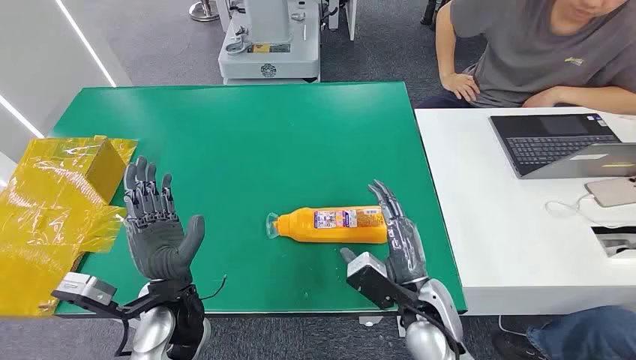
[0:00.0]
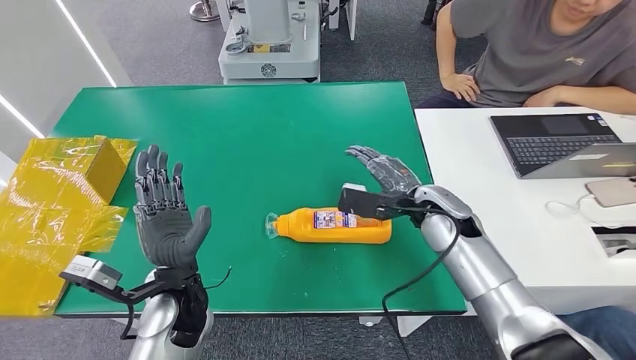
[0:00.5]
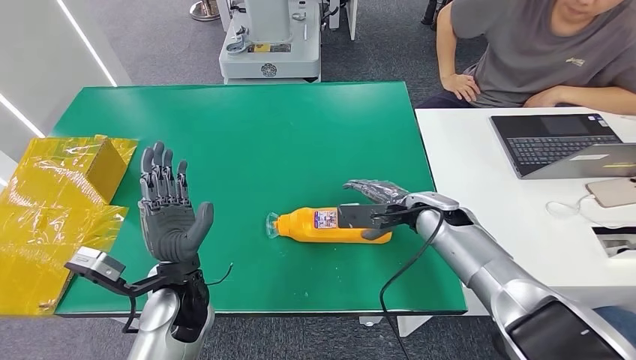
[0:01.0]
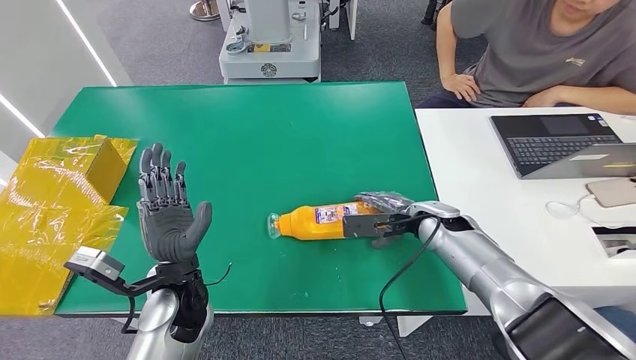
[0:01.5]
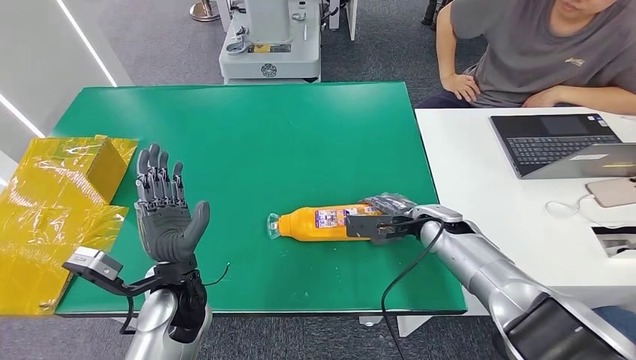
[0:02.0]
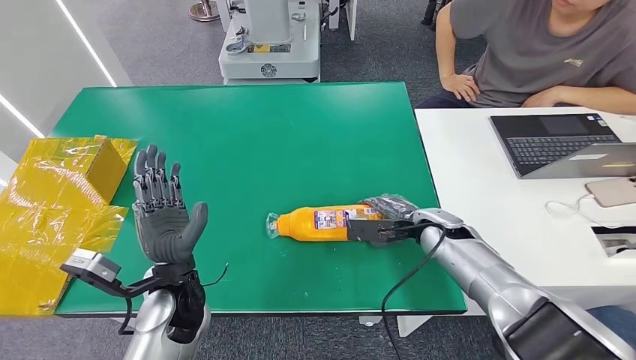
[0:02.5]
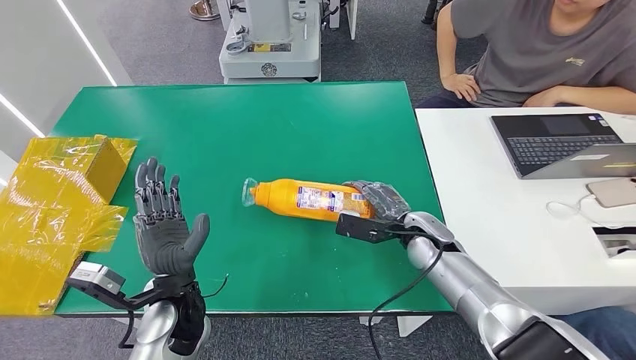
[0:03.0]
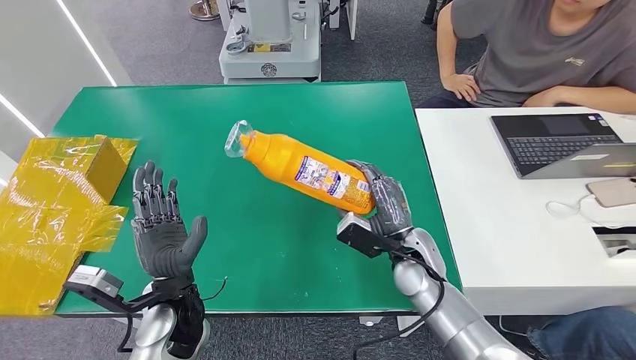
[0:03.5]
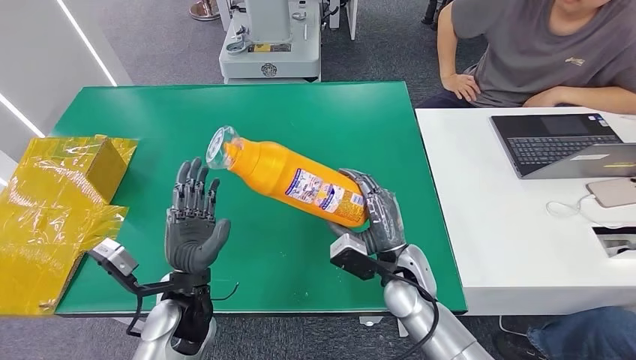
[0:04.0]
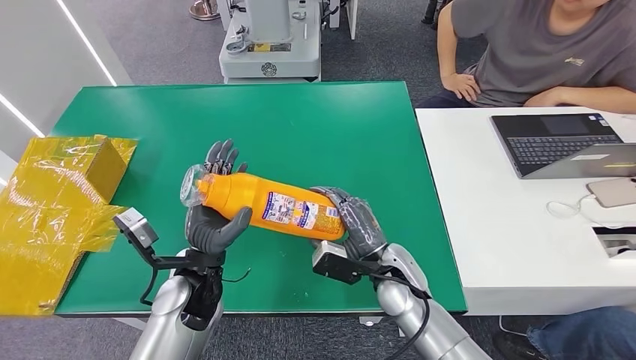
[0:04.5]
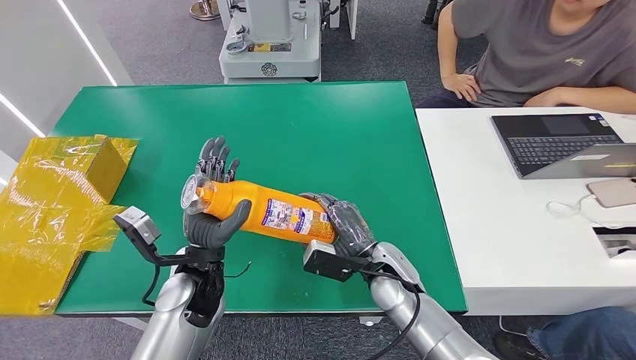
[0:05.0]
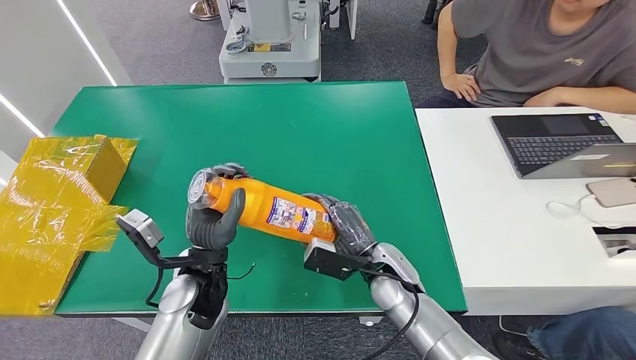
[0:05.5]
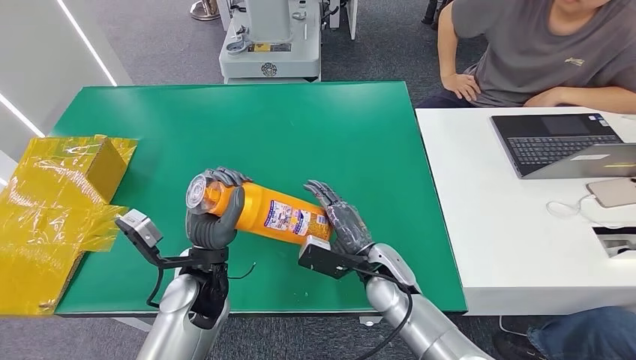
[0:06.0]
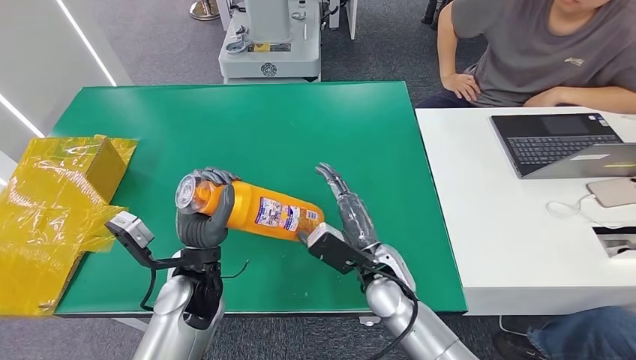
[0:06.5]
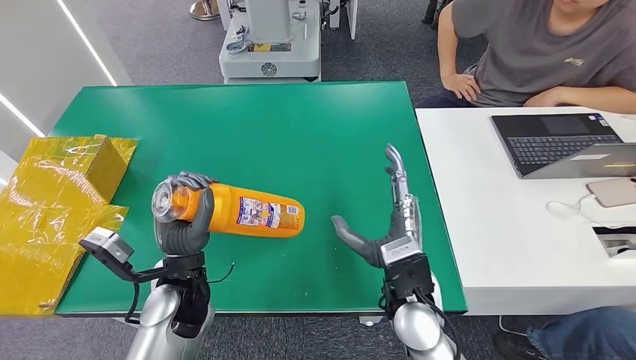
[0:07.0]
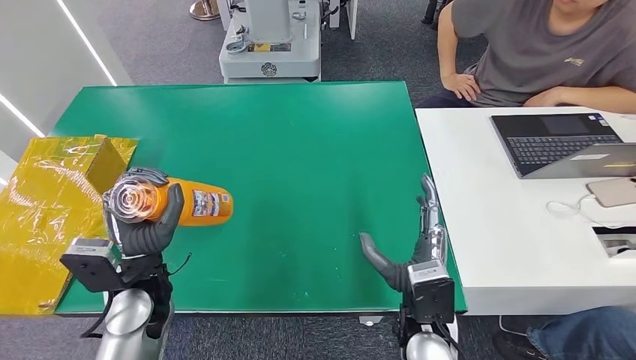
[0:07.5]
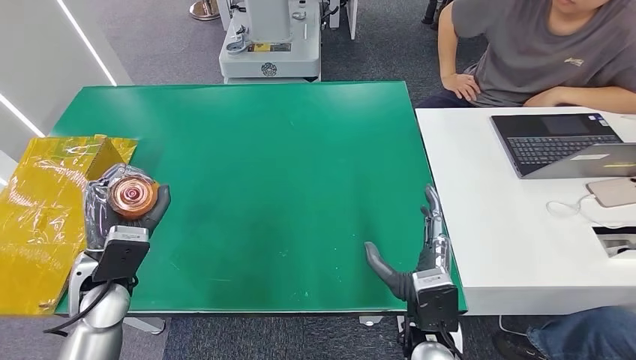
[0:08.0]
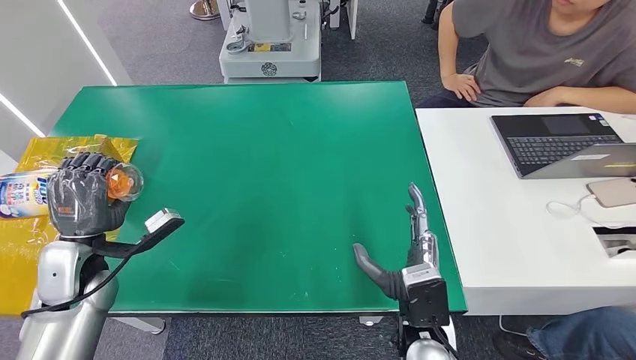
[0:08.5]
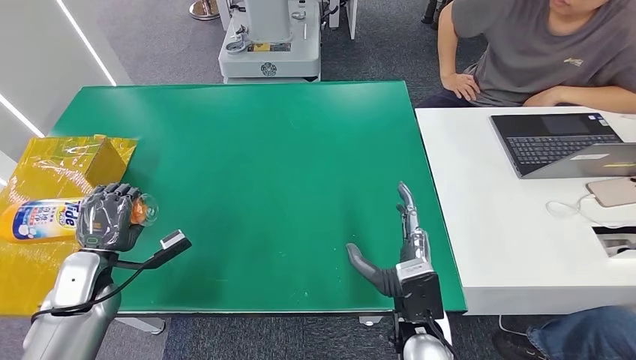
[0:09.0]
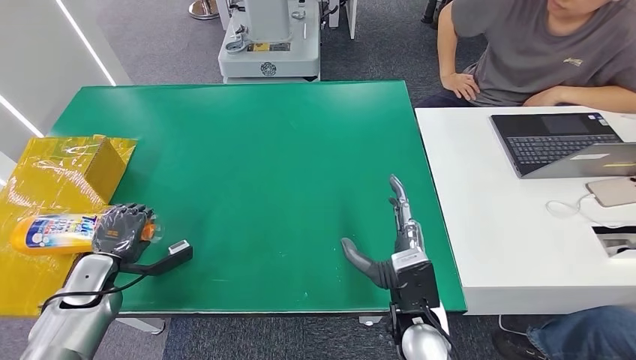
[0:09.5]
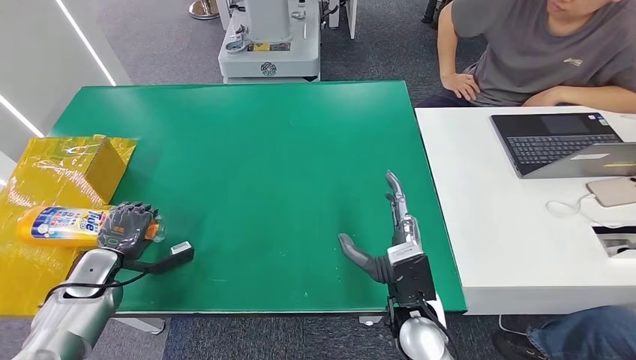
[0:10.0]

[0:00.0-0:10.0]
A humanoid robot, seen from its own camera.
Step, 0.0 to 5.0 s: Pick up the bottle from the table.
2.0 to 4.0 s: The right hand moves to the left and backward, some 15 cm.
6.0 to 8.0 s: The left hand shifts some 15 cm to the left. Meanwhile the right hand is displaced backward by some 10 cm.
8.0 to 10.0 s: The left hand is displaced to the left and downward by about 15 cm.

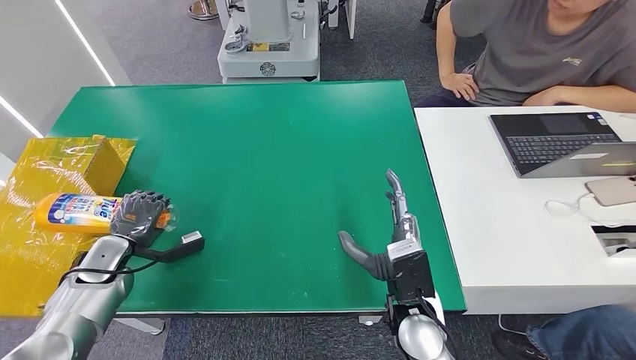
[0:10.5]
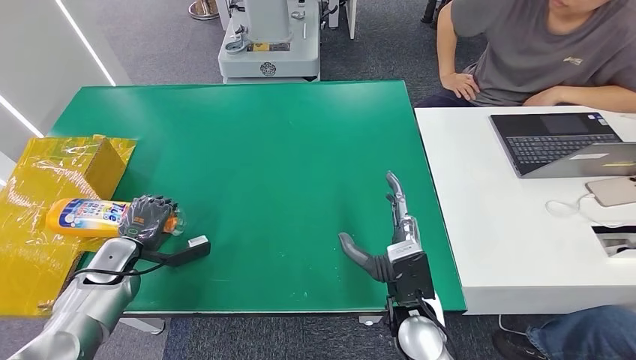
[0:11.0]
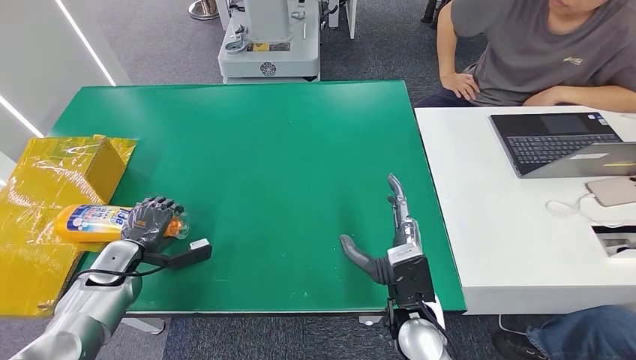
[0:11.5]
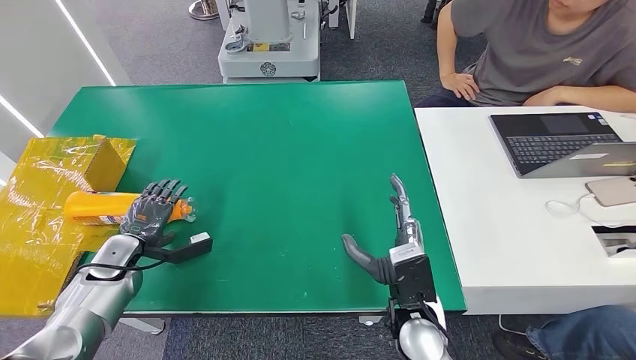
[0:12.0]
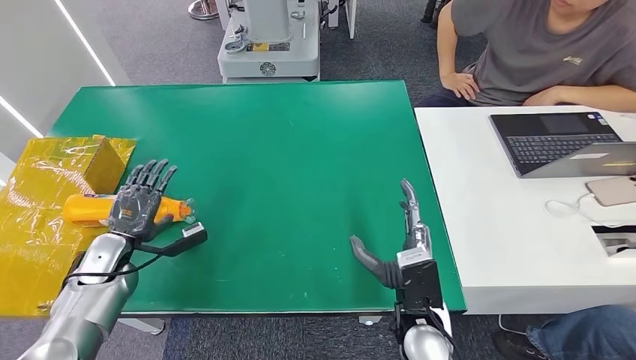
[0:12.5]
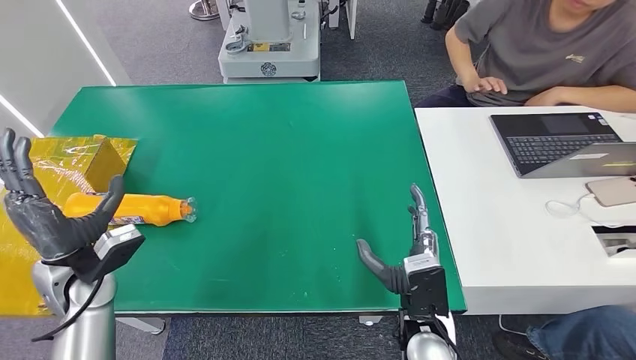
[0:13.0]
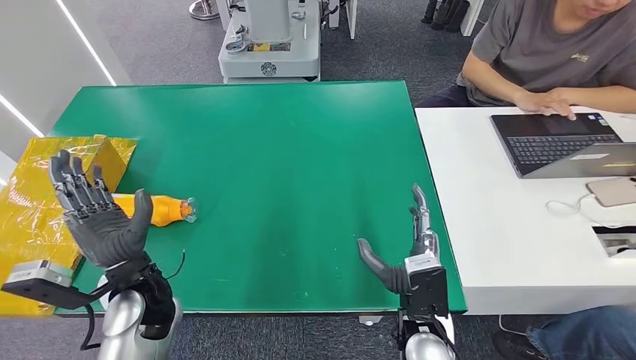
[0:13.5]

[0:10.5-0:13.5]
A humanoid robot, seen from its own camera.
Step, 10.5 to 13.5 s: Turn the bottle to the front side.
10.5 to 12.0 s: There are only small adjustments of the hands.
12.0 to 13.5 s: The left hand goes some 20 cm to the right, upward and backward.

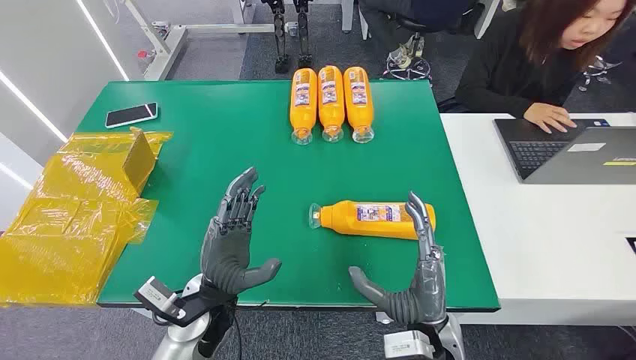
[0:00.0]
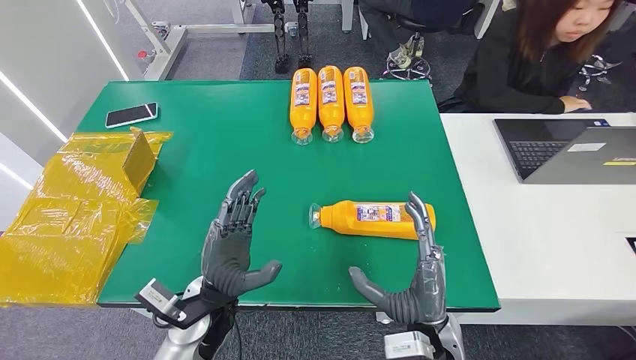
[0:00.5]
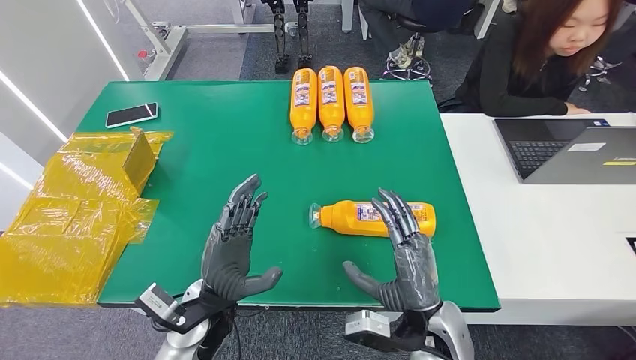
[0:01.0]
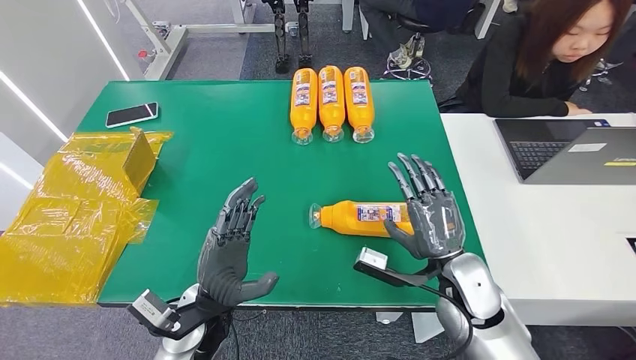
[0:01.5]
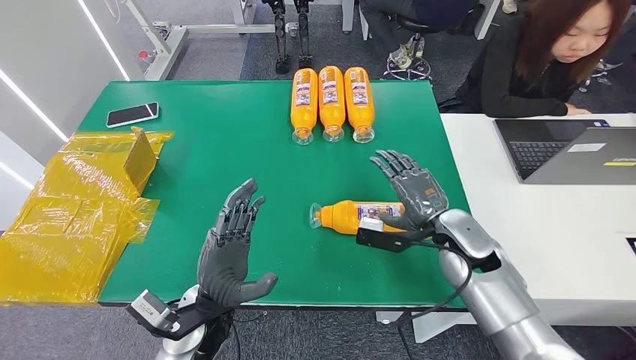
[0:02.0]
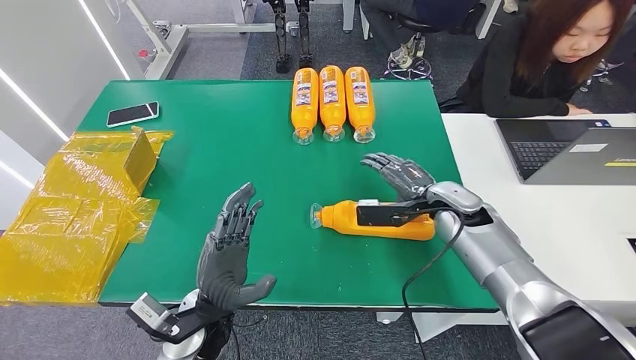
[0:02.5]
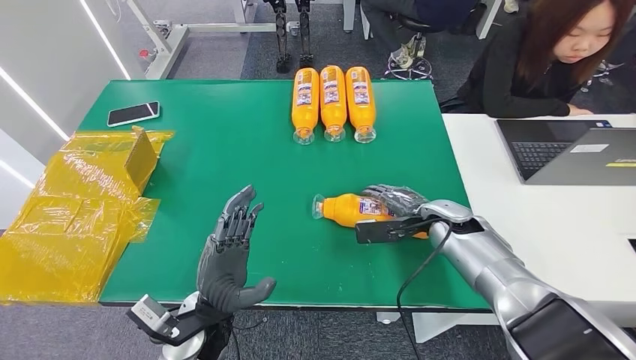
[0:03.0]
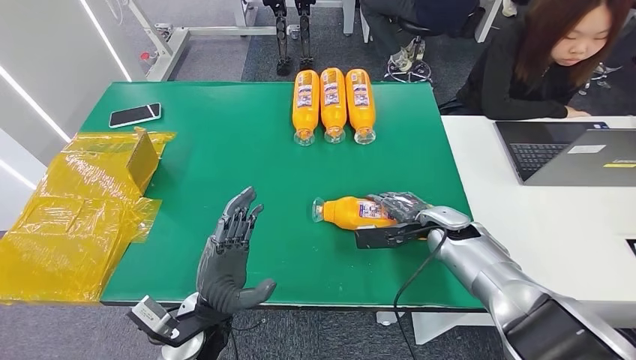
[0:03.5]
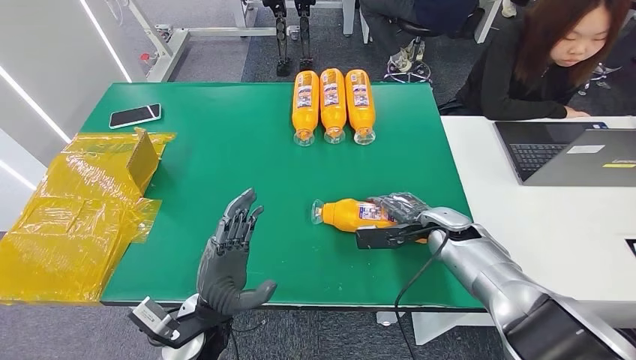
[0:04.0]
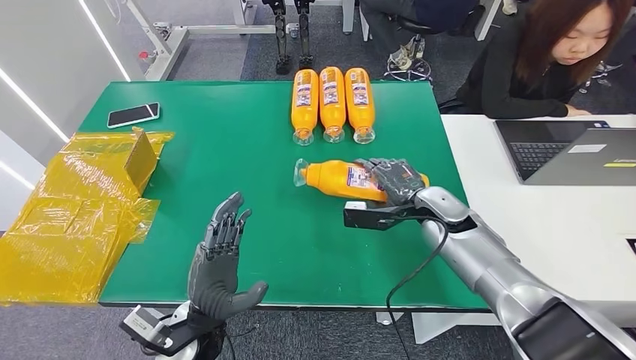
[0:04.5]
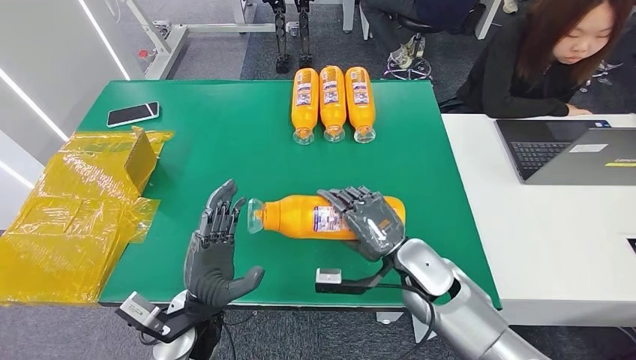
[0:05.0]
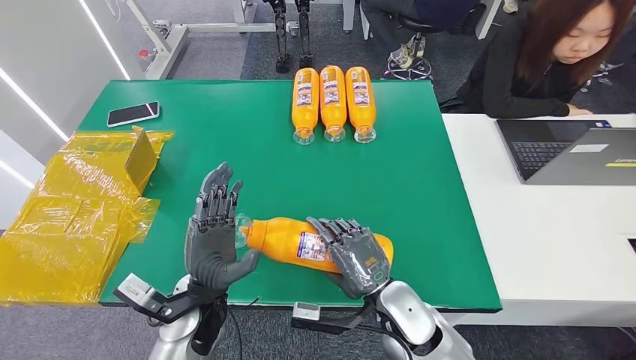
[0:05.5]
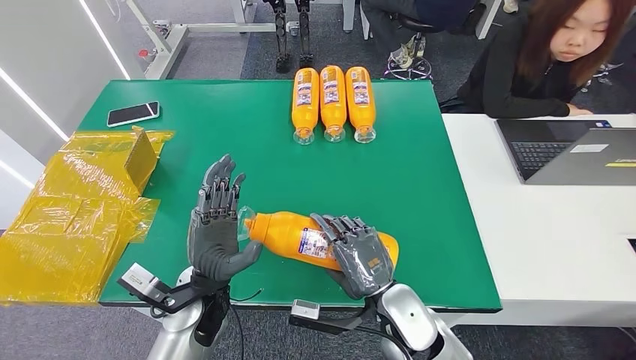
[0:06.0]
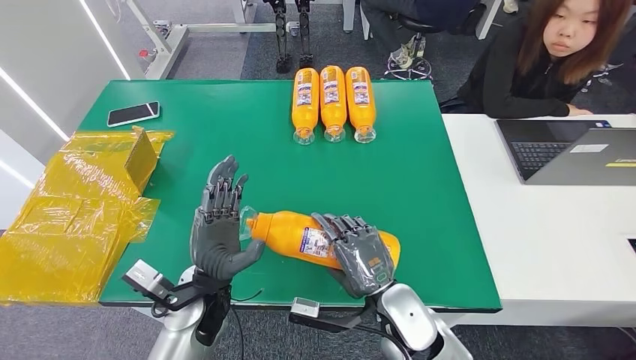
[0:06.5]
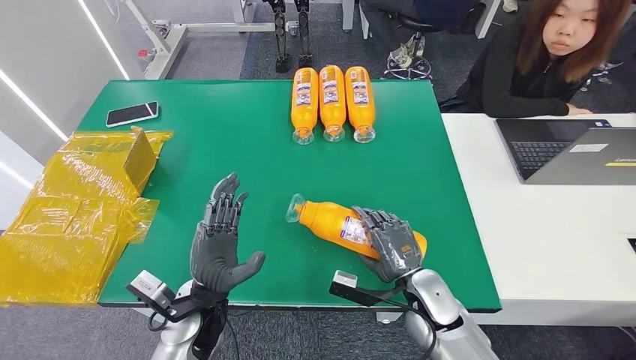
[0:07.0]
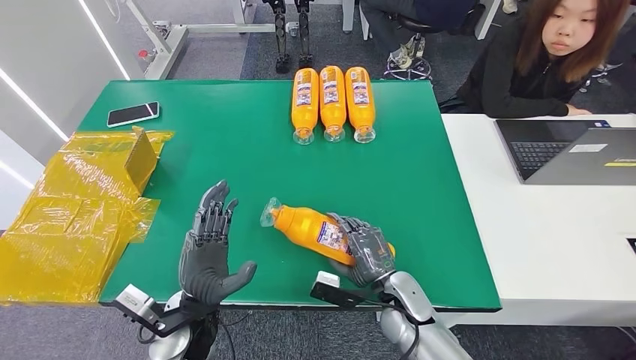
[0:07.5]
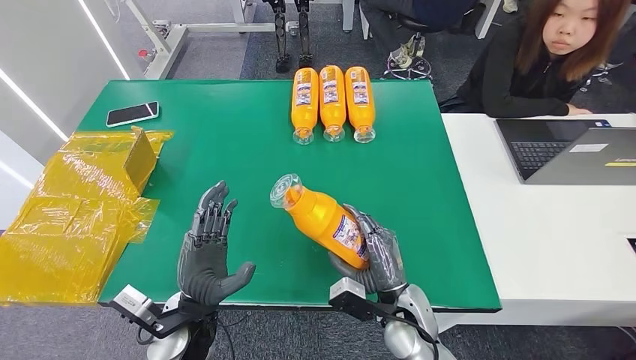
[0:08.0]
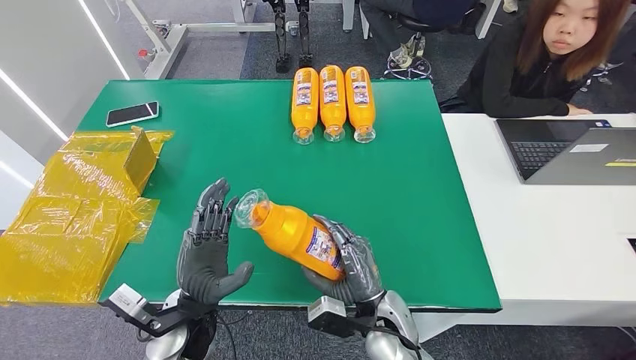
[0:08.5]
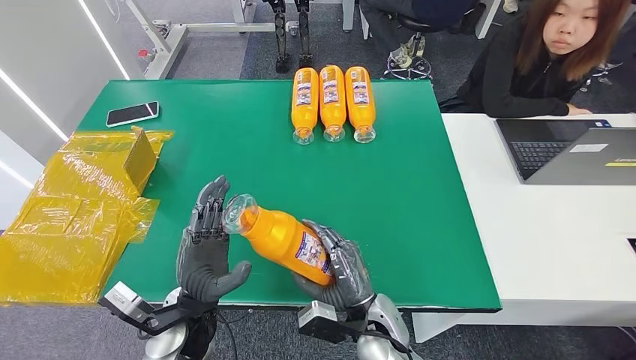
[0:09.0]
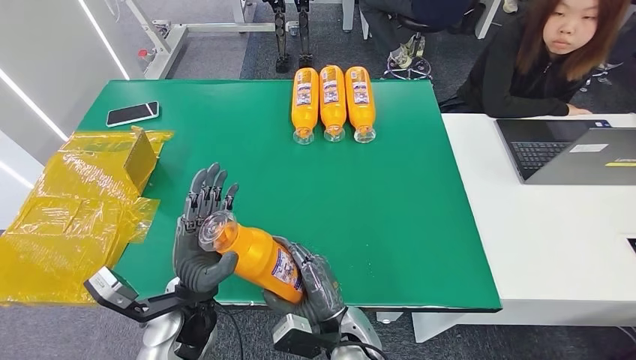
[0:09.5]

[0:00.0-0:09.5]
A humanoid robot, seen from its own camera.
Step, 0.0 to 8.5 s: Pick up the bottle from the table.
2.0 to 4.0 s: The right hand is displaced downward by roughly 5 cm.
5.5 to 7.5 s: The right hand shifts some 5 cm downward.
7.5 to 9.5 s: The right hand travels to the left and backward by about 15 cm.
